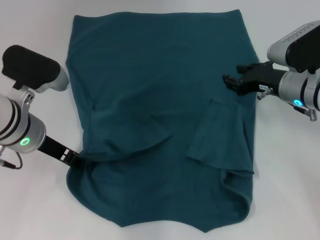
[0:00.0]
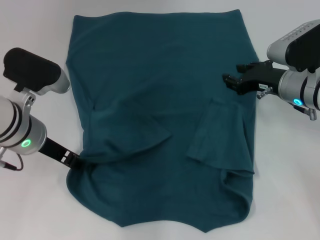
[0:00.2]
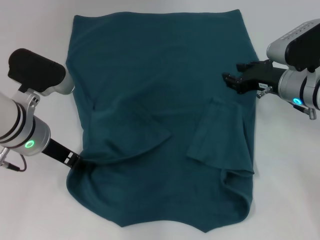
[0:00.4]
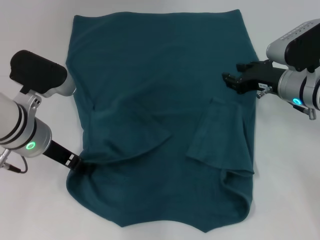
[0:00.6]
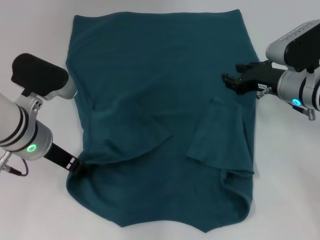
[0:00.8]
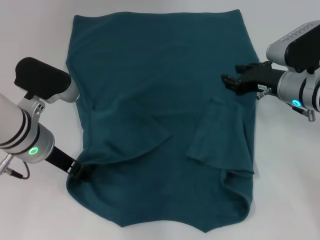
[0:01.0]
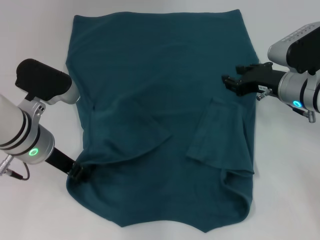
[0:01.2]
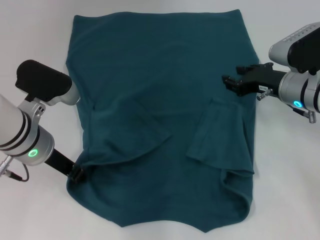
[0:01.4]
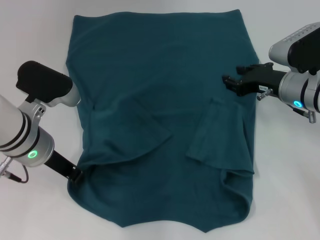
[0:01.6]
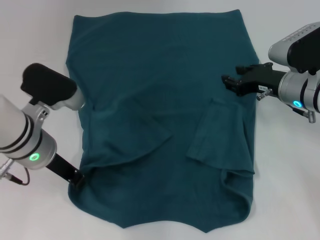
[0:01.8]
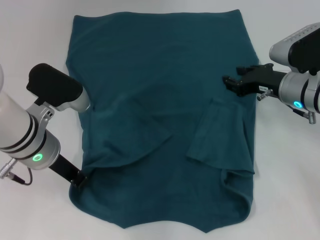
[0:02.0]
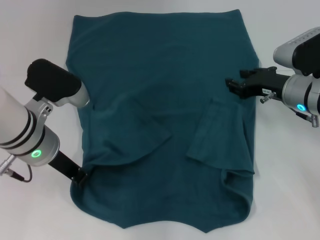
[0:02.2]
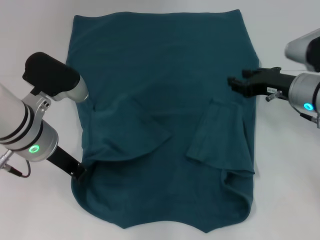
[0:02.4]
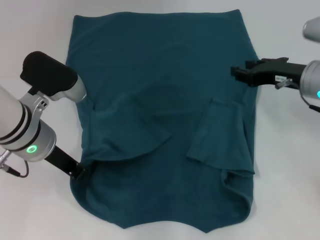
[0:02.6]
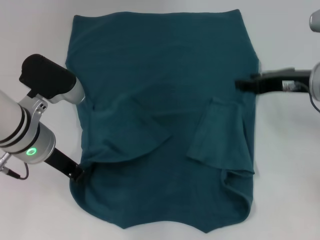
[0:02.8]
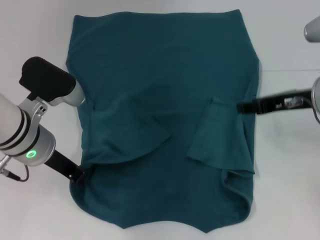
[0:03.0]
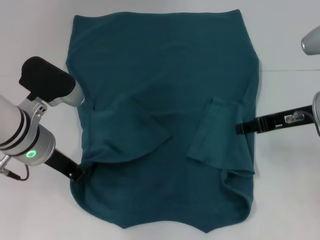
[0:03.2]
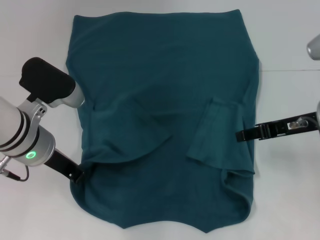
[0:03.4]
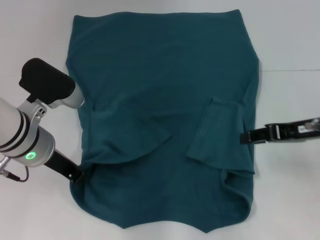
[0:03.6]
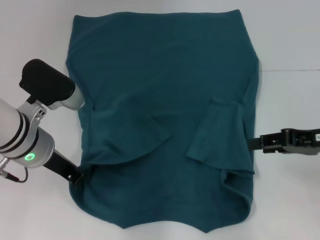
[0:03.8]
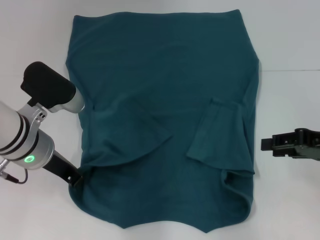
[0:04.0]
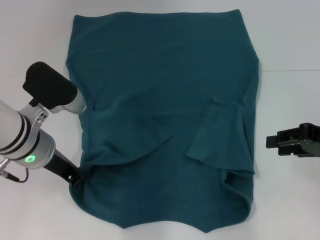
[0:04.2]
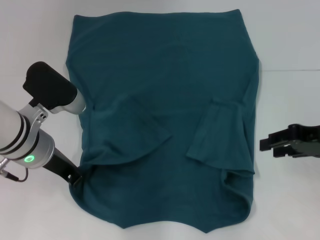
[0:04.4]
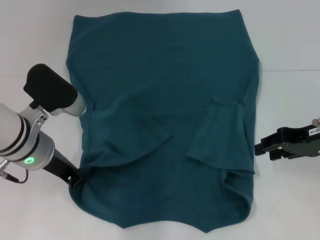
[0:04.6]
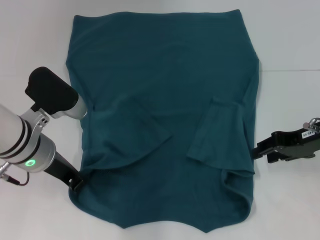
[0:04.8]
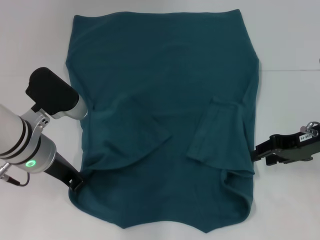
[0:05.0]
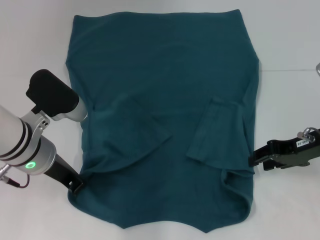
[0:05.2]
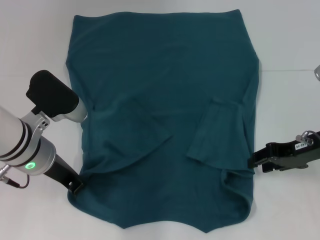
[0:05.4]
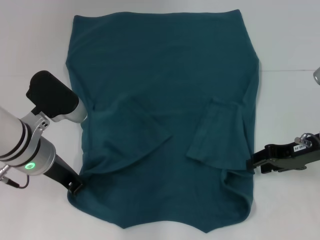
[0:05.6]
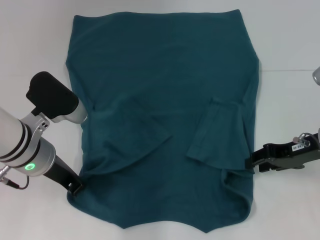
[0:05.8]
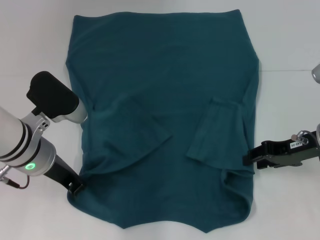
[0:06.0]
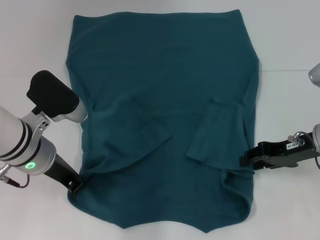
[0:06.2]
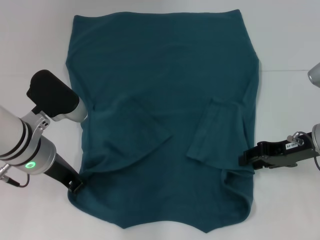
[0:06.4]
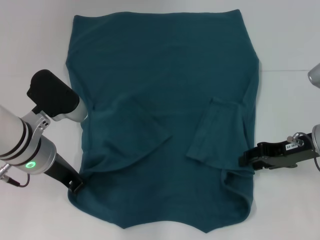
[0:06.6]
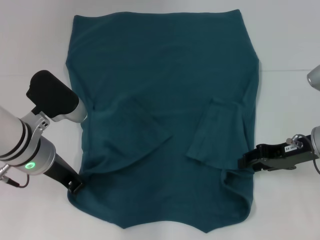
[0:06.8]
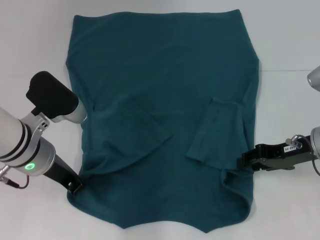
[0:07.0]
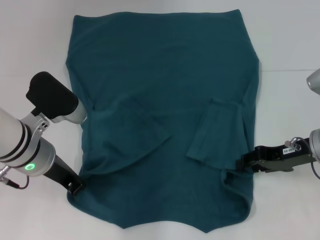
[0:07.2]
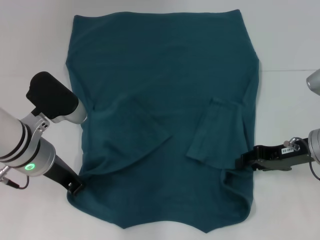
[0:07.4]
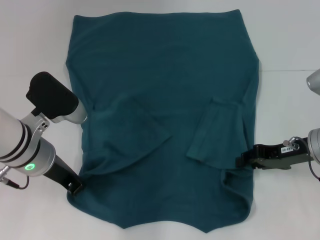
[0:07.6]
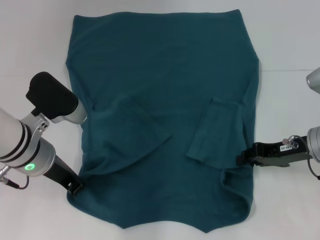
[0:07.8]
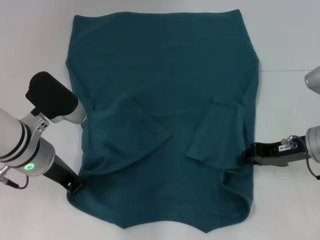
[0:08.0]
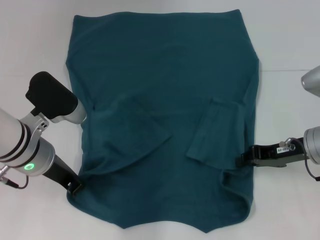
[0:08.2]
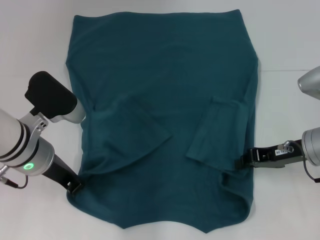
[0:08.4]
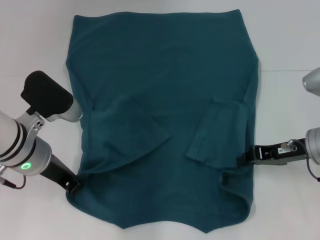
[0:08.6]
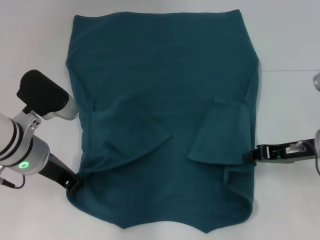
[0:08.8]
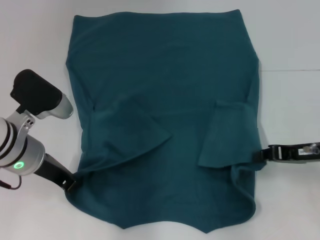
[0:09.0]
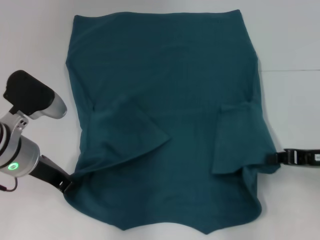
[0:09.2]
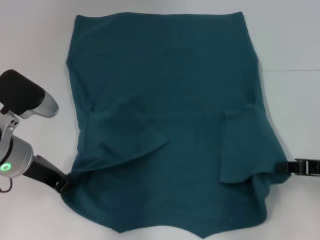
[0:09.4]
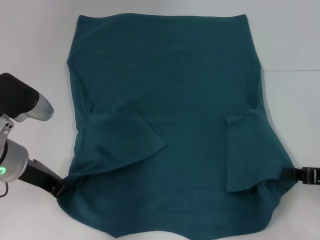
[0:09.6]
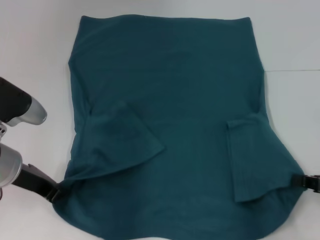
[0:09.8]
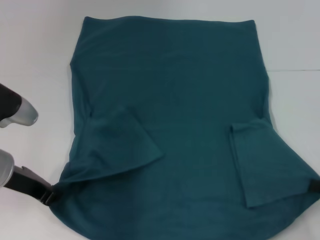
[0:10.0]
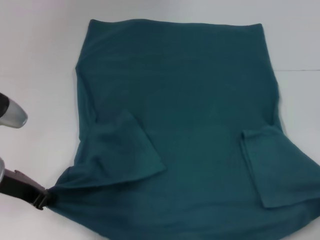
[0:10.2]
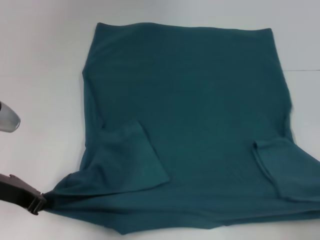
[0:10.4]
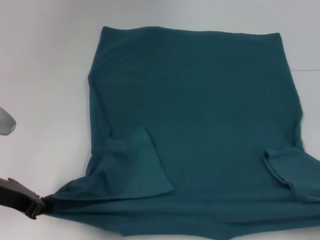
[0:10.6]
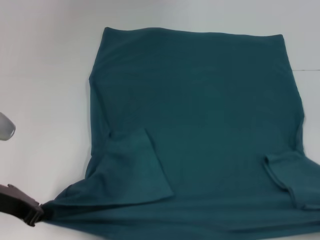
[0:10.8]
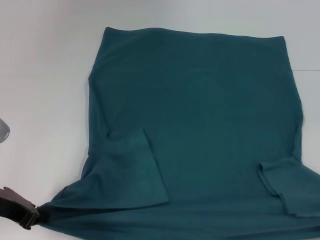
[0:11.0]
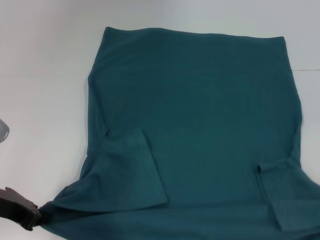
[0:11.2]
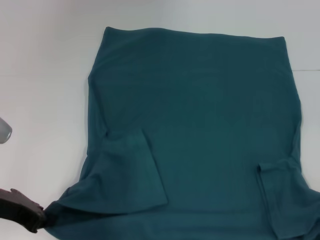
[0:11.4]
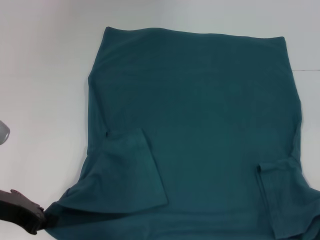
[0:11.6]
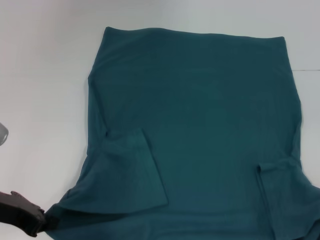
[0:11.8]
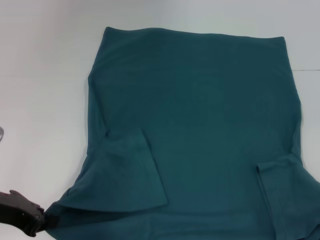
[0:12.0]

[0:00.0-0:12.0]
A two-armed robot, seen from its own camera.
Step, 0:00.0 to 0:02.0: Grab the bottom left corner with your left hand.
Step, 0:02.2 to 0:08.6: Grab the bottom right corner with your right hand.
0:00.0 to 0:01.6: The left gripper closes.
0:01.6 to 0:03.0: The right gripper moves upward and backward, some 10 cm.
0:03.0 to 0:04.4: The right gripper travels to the right by approximately 5 cm.
0:04.4 to 0:06.0: The right gripper travels downward by some 5 cm.
0:06.0 to 0:07.6: The grippers stay close to where they were, moving slightly.
0:07.6 to 0:09.0: The right gripper closes.
0:09.0 to 0:10.4: The left gripper shifts approximately 5 cm to the left. Meanwhile the right gripper heads backward and to the right, covering approximately 20 cm.
0:10.4 to 0:12.0: The grippers stay close to where they were, moving slightly.

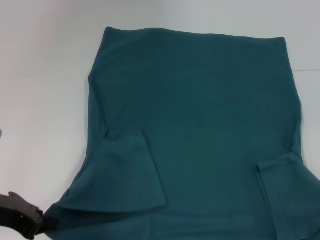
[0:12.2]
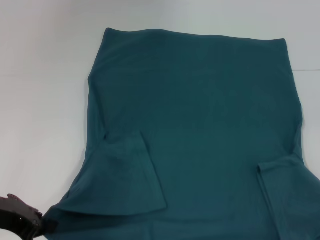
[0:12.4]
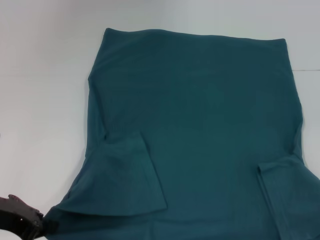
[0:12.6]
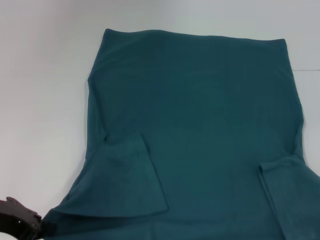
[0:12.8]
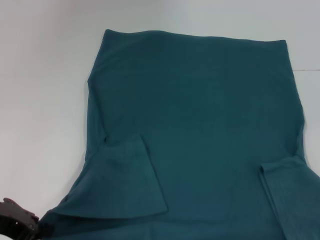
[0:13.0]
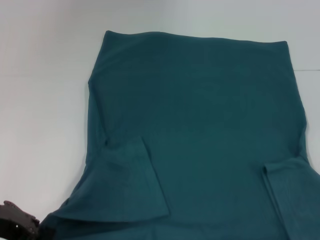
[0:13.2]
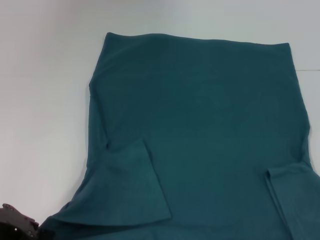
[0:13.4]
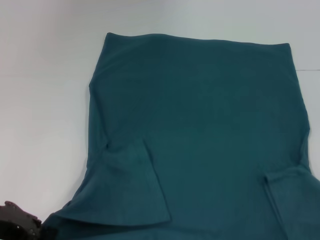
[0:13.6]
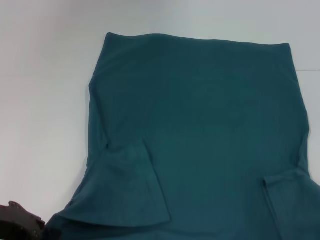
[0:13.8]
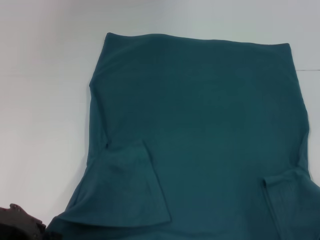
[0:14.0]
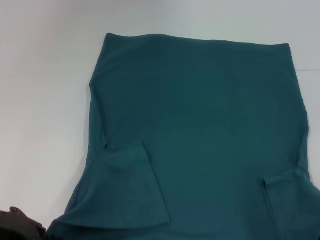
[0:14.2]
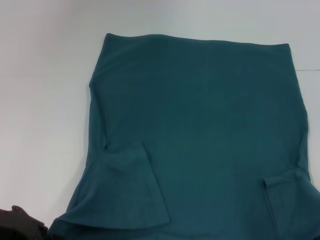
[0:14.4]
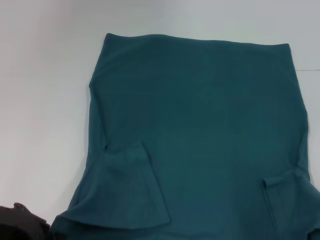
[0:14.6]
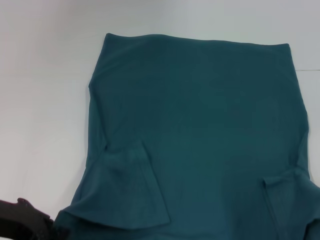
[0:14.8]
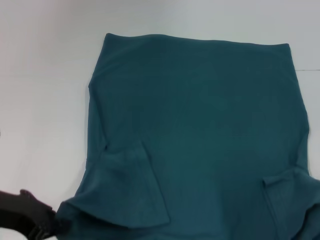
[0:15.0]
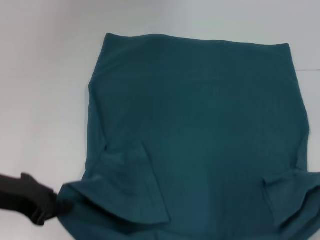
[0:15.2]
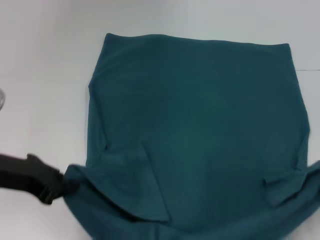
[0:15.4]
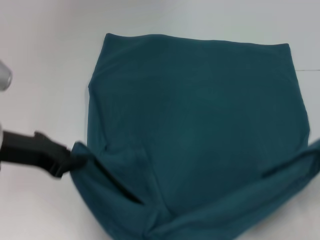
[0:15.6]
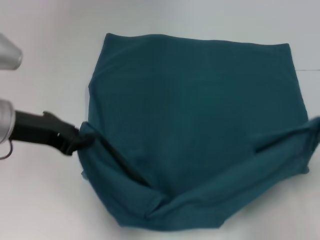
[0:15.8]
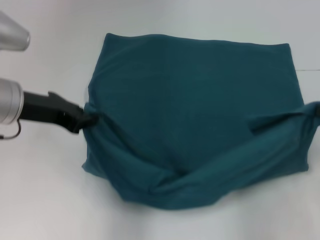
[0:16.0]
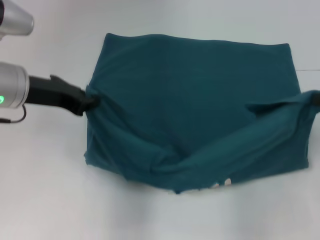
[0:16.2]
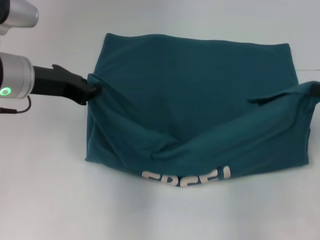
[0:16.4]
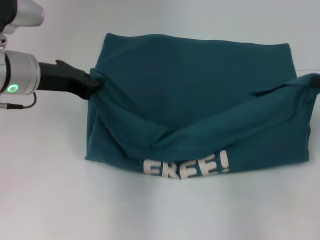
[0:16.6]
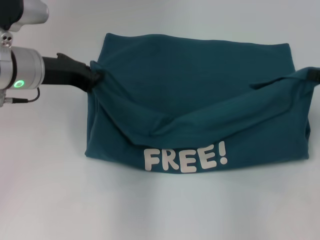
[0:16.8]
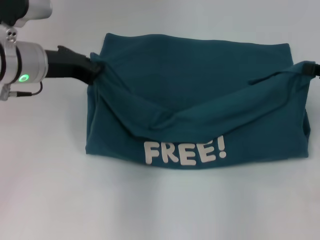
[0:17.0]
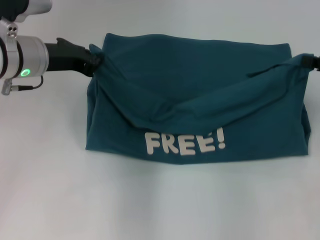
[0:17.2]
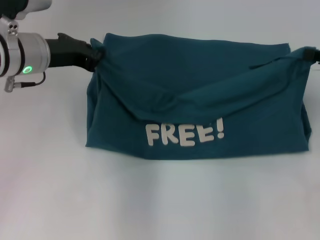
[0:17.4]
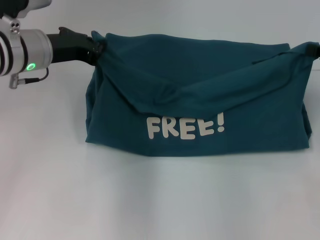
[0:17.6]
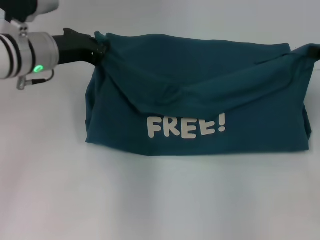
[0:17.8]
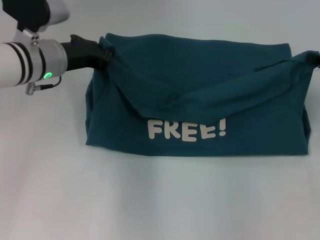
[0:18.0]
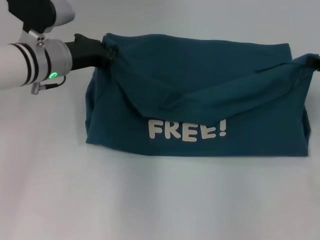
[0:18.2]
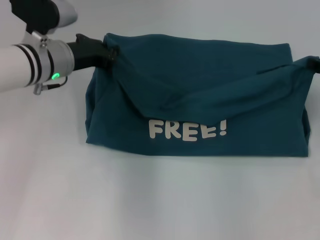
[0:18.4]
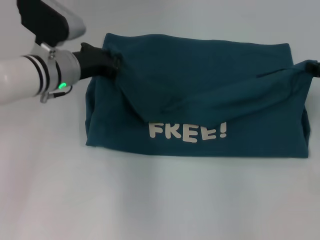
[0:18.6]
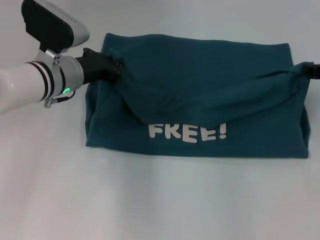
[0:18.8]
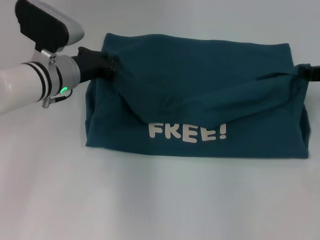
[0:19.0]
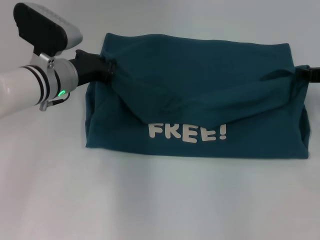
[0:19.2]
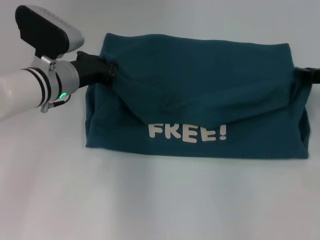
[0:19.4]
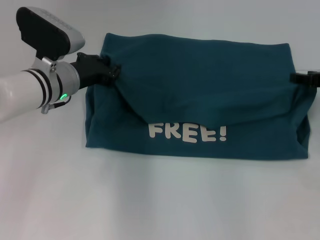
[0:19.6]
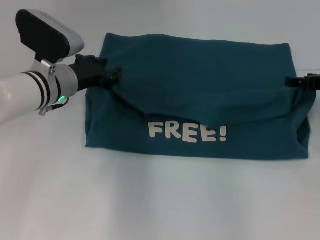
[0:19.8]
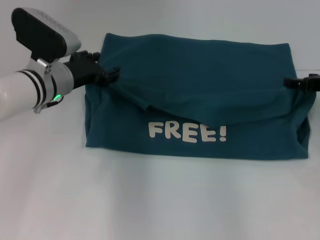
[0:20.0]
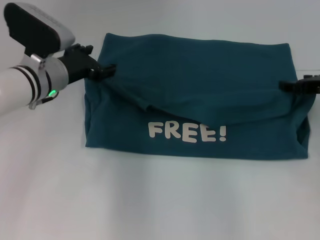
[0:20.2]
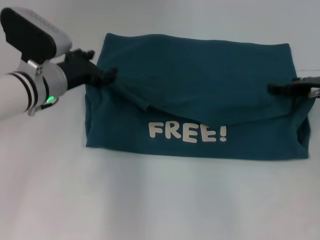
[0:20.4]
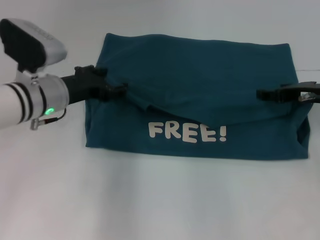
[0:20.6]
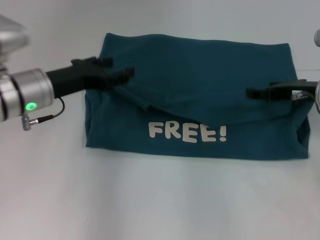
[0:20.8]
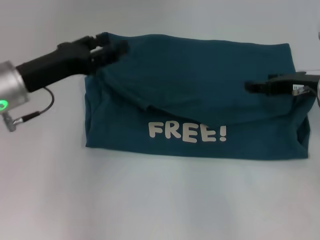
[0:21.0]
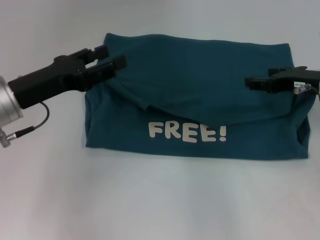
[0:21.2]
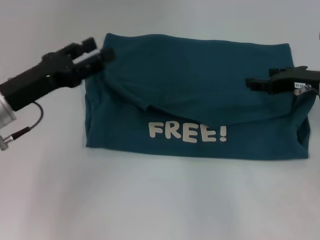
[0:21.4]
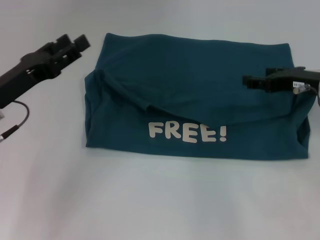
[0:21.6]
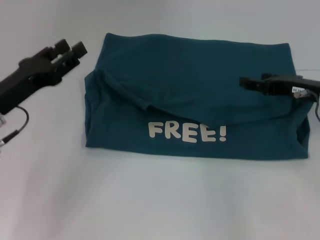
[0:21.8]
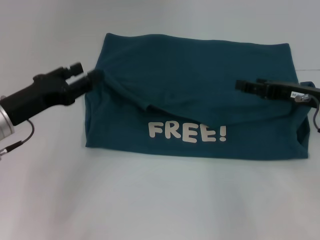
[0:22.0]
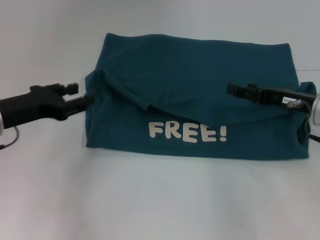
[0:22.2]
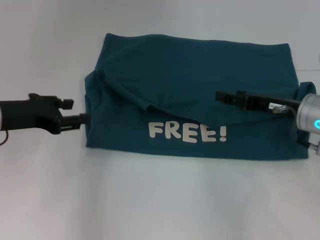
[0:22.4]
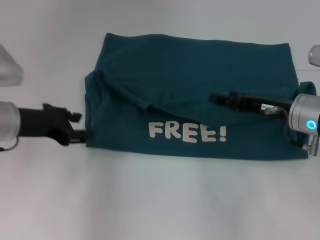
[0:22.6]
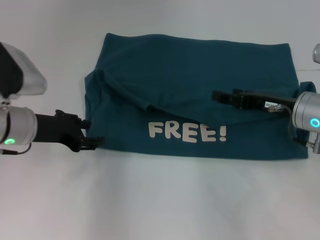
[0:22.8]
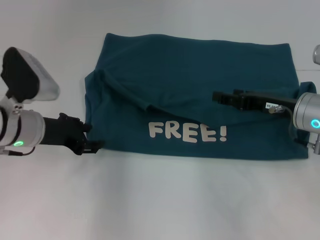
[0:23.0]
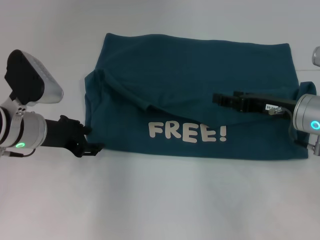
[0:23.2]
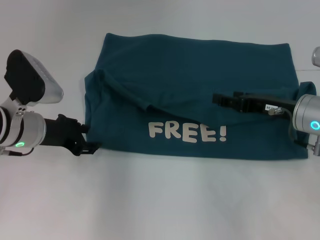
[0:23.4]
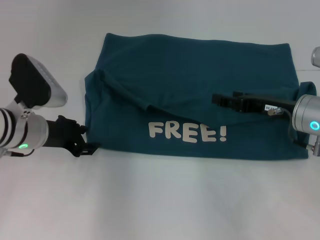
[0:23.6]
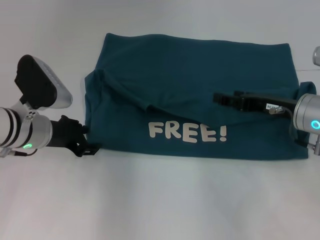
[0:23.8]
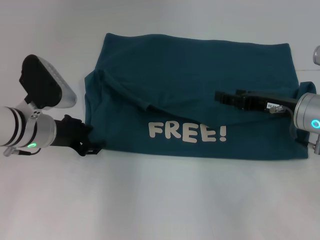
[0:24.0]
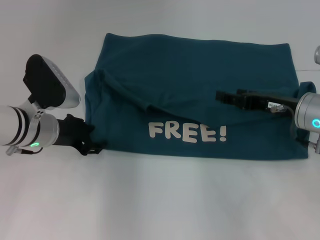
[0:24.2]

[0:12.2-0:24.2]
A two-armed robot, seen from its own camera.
Step, 0:12.2 to 0:20.8: Fold the clothes to the left.
Step, 0:12.2 to 0:20.8: Fold the clothes to the right.
0:12.2 to 0:13.8: The grippers move only a little.
0:13.8 to 0:15.2: The right gripper ends up roughly 5 cm from where it was.
0:15.2 to 0:16.6: The two grippers go about 15 cm forward.
0:16.6 to 0:18.2: Both grippers move forward, some 5 cm.
0:18.2 to 0:19.8: The right gripper opens its fingers.
0:19.8 to 0:21.2: The right gripper travels to the left by approximately 5 cm; the left gripper goes approximately 10 cm backward and to the left, and opens.
0:21.2 to 0:22.6: The right gripper moves approximately 5 cm.
0:22.6 to 0:24.2: The left gripper ends up roughly 5 cm from where it was.
